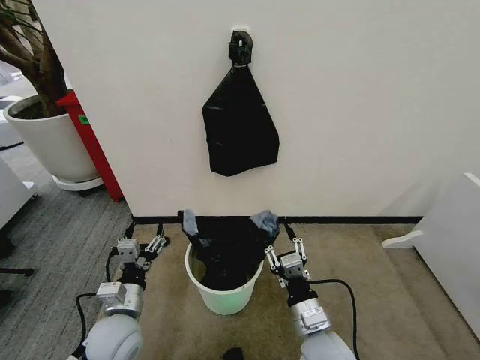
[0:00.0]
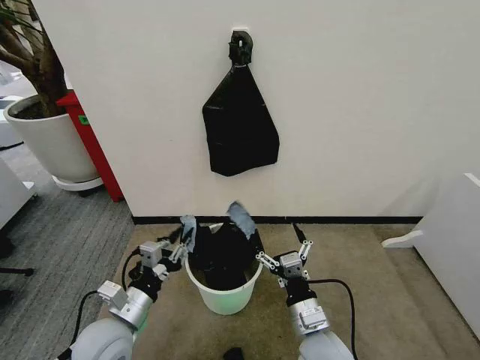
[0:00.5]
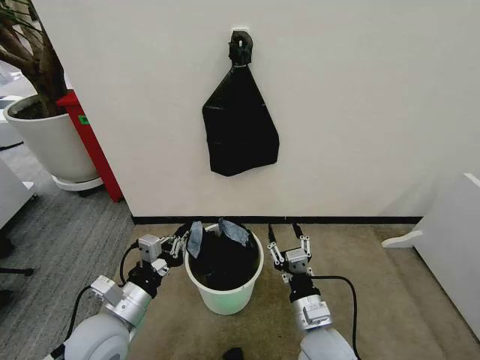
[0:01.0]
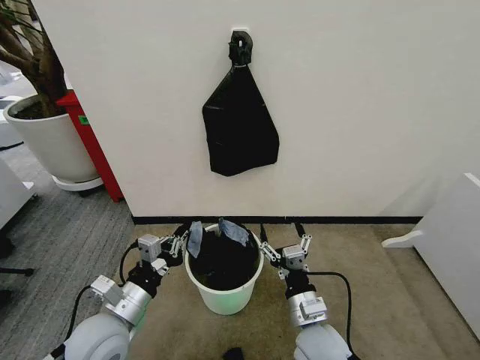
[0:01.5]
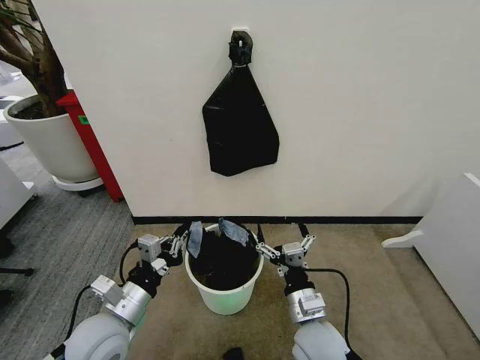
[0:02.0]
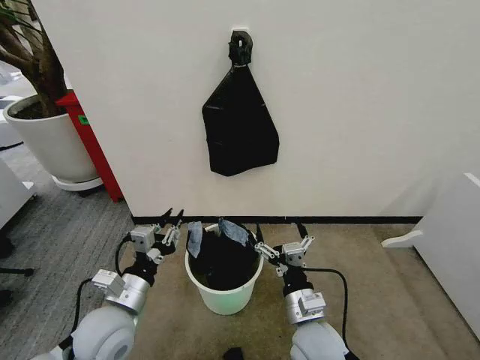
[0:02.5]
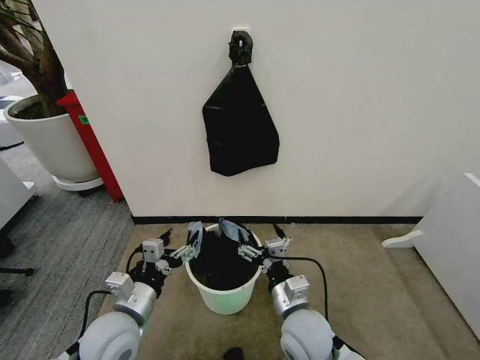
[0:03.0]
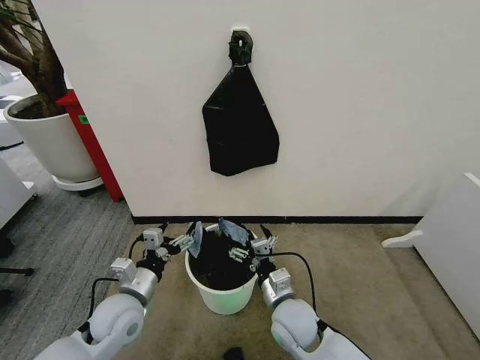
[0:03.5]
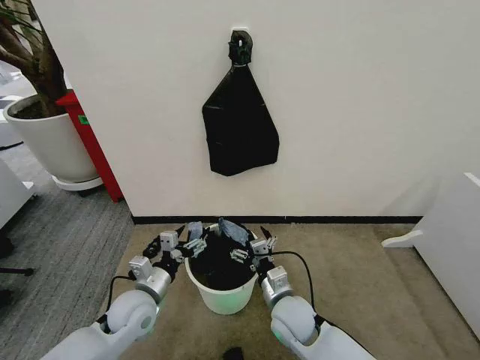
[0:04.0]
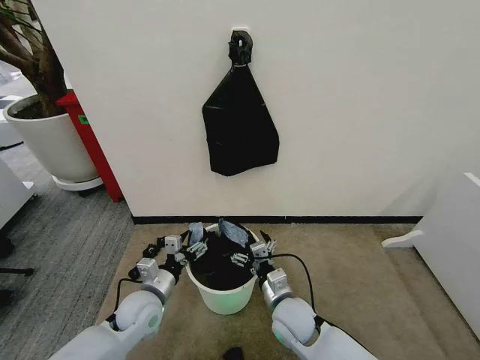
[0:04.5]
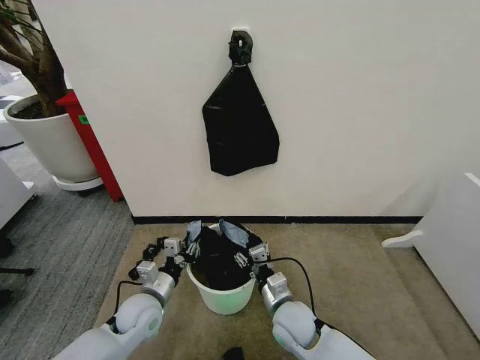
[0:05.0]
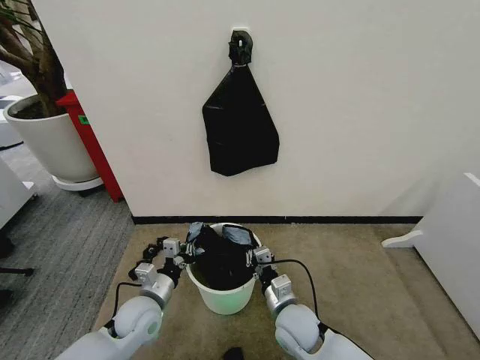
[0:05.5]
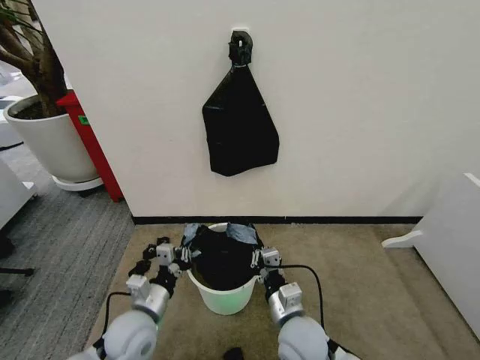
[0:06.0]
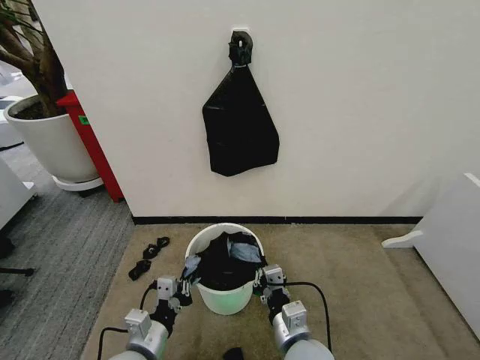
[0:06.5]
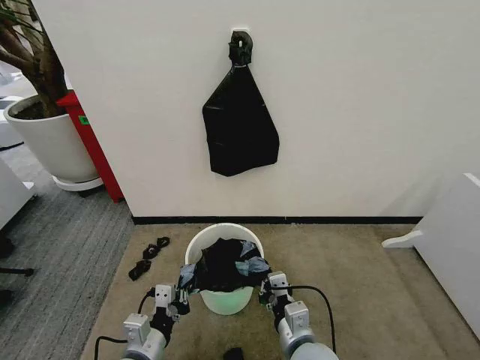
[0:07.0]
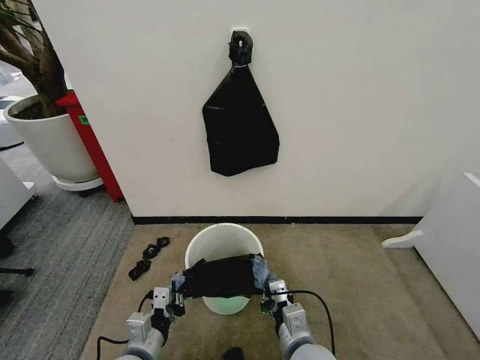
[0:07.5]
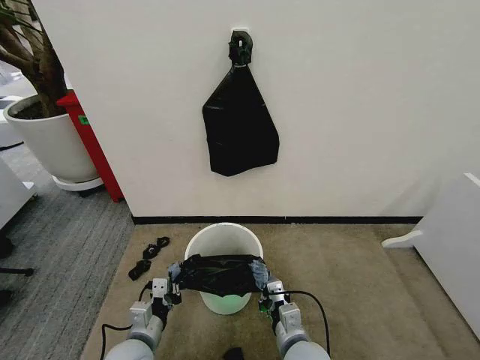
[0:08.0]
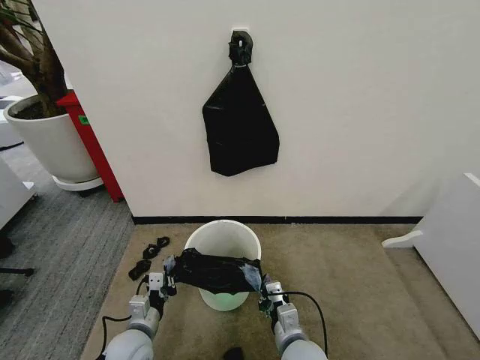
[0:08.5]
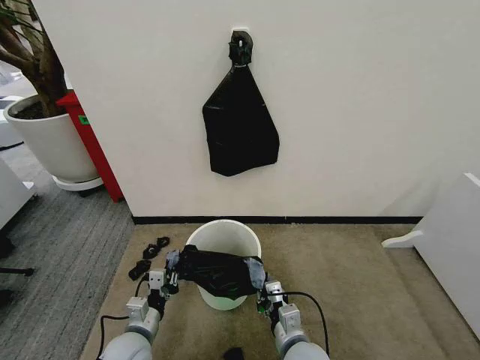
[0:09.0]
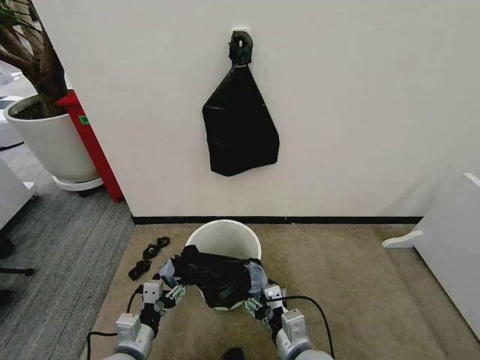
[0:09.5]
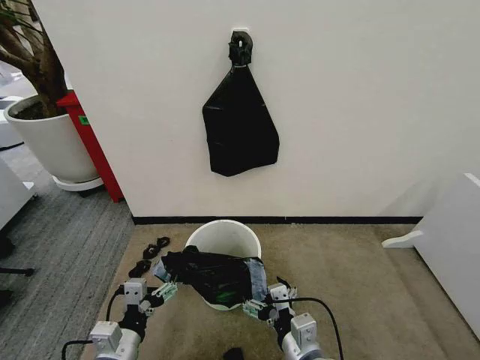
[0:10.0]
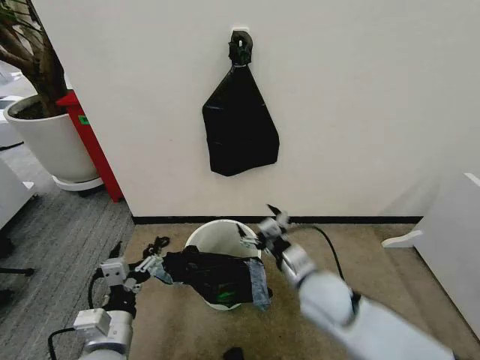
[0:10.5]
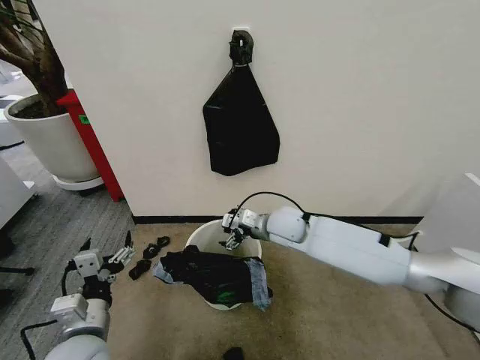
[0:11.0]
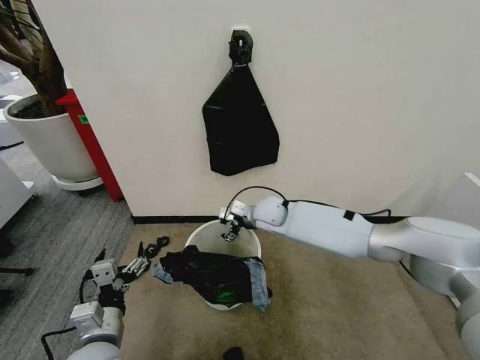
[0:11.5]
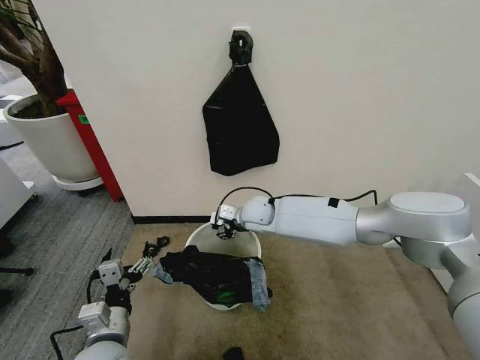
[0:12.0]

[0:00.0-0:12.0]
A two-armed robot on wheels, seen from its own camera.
Task of the whole recording: Place the garbage bag over the trash bin.
0:00.0 to 0:02.0: The right gripper opens up. The left gripper shifts some 5 cm upward, and closes up.
0:02.0 to 0:04.0: The left gripper heads forward and downward, covering approximately 10 cm, and opens, while the right gripper is displaced forward by about 5 cm.
0:04.0 to 0:06.0: The right gripper shifts by some 5 cm, and closes its fingers. Meanwhile the left gripper closes.
0:06.0 to 0:08.0: The left gripper moves about 5 cm.
0:08.0 to 0:10.0: The right gripper shifts some 5 cm upward, and opens; the left gripper is displaced upward and backward by about 10 cm, and opens up.
0:10.0 to 0:12.0: The right gripper is displaced forward by approximately 35 cm, and closes up.

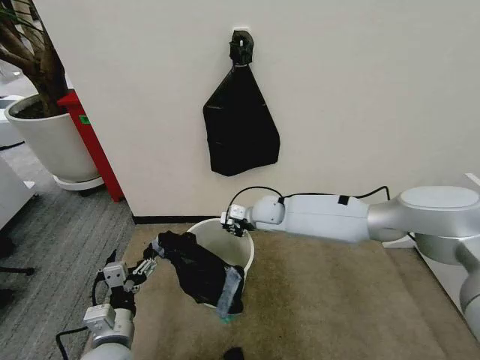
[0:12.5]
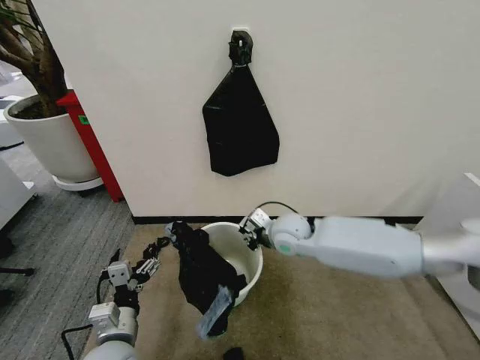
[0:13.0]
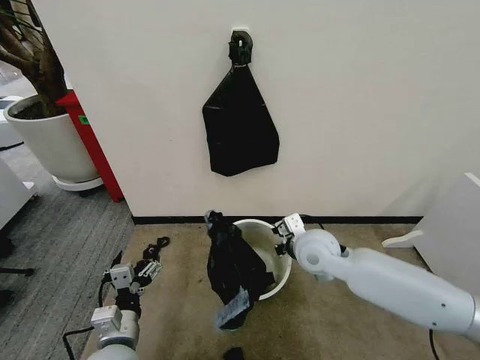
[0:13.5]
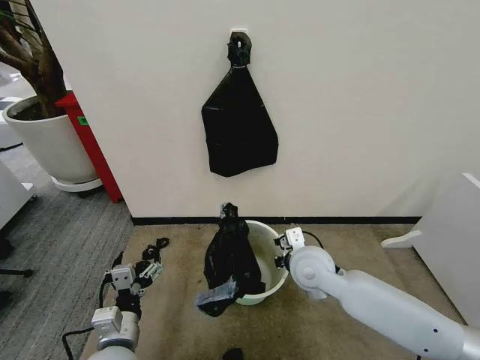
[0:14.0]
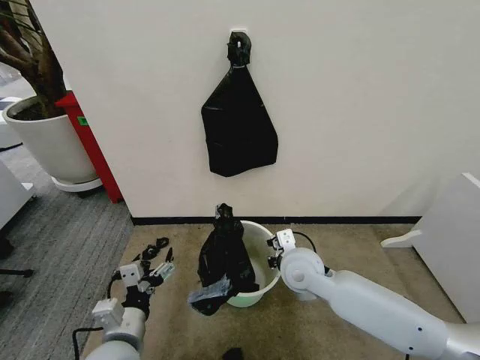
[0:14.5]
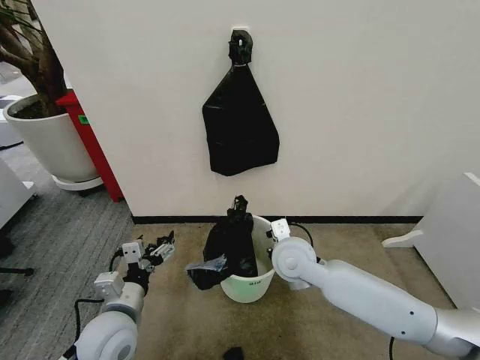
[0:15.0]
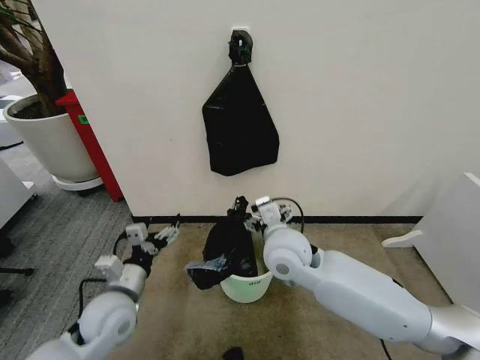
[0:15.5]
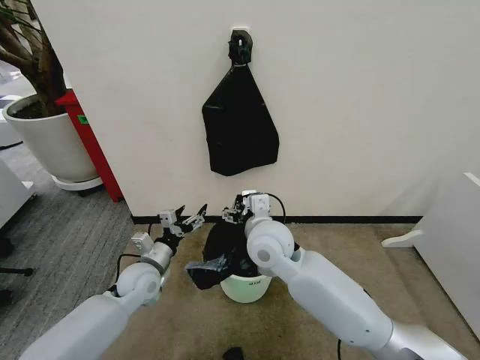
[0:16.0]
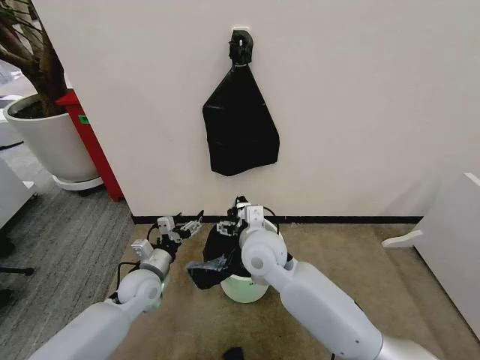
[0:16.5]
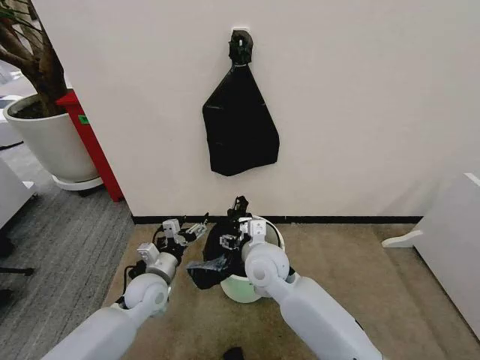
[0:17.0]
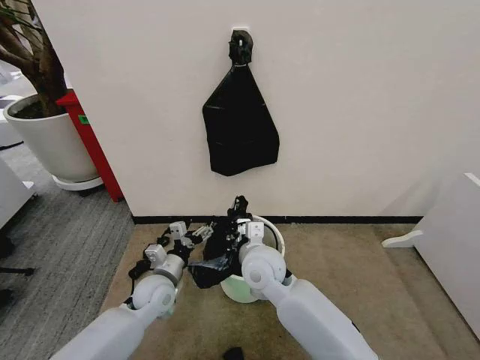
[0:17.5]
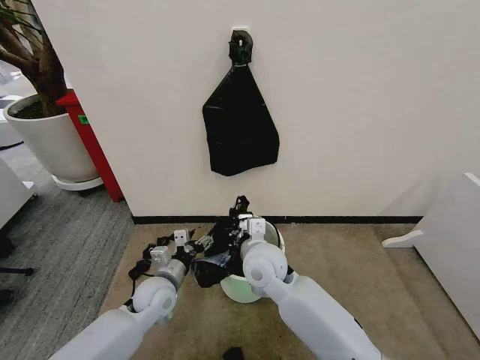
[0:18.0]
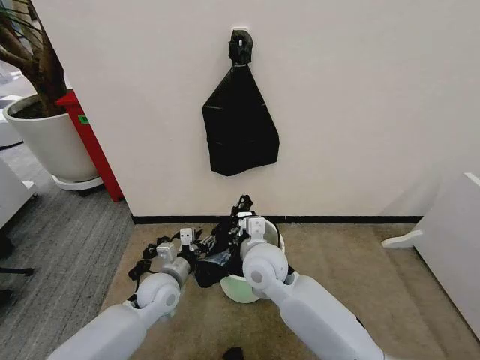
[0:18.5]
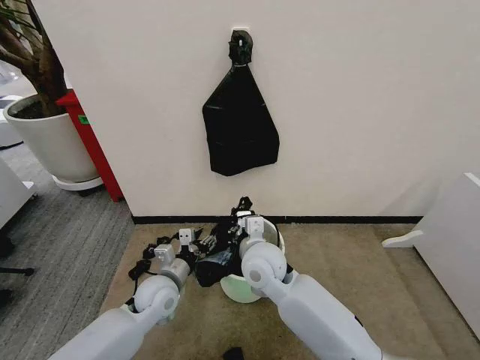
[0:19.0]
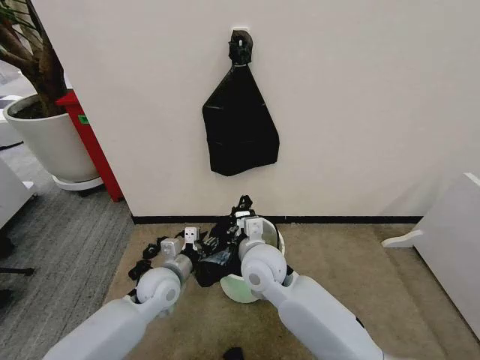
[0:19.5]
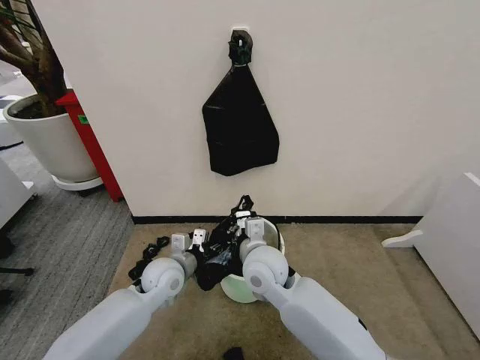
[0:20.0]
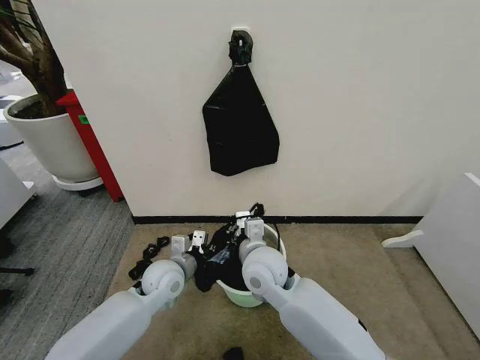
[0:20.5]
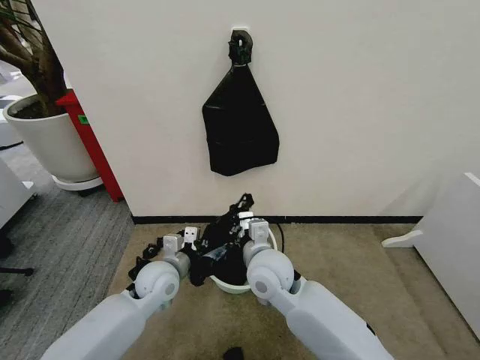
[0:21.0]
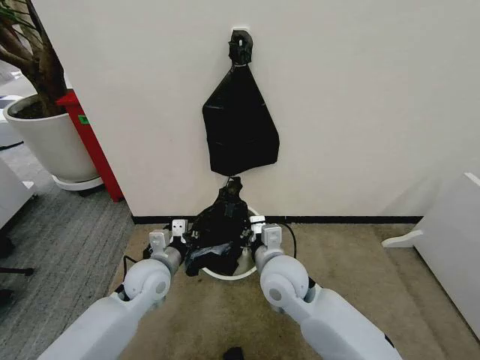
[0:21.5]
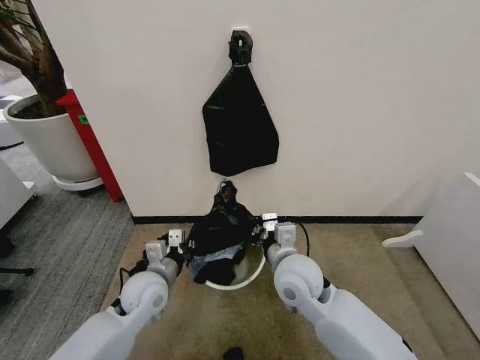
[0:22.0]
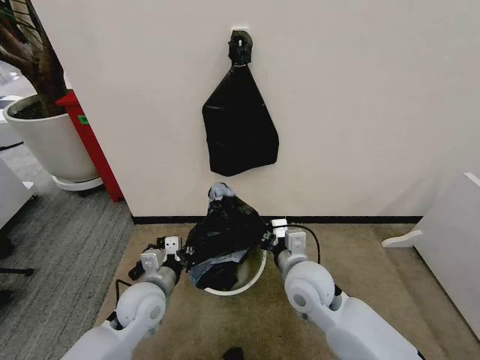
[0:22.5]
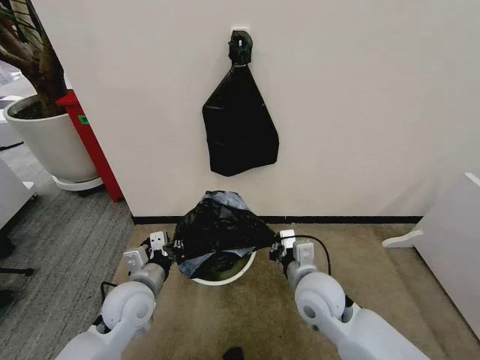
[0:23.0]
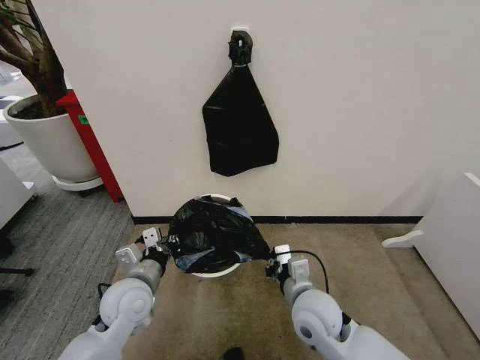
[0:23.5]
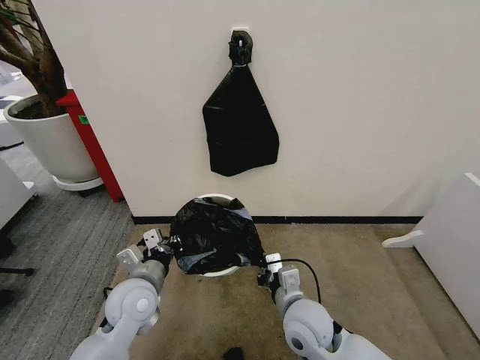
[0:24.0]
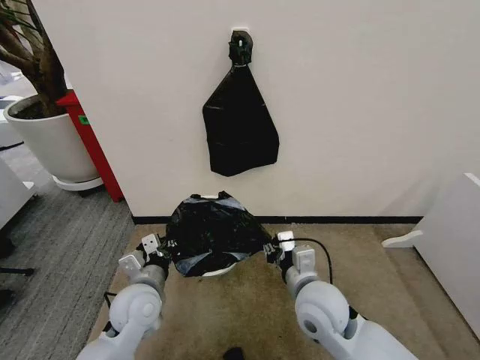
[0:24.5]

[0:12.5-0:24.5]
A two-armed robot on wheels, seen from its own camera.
Task of the whole recording: Place the garbage bag over the trash bin.
0:12.5 to 0:14.5: The right gripper is displaced backward by about 15 cm.
0:14.5 to 0:16.5: The right gripper goes some 10 cm to the left and upward, and opens up. The left gripper shifts some 15 cm forward.
0:16.5 to 0:18.5: The left gripper ends up roughly 5 cm from where it was. The right gripper closes its fingers.
0:18.5 to 0:20.5: The left gripper closes up.
0:20.5 to 0:22.5: The right gripper travels to the right by about 10 cm. Meanwhile the left gripper shifts approximately 5 cm backward.

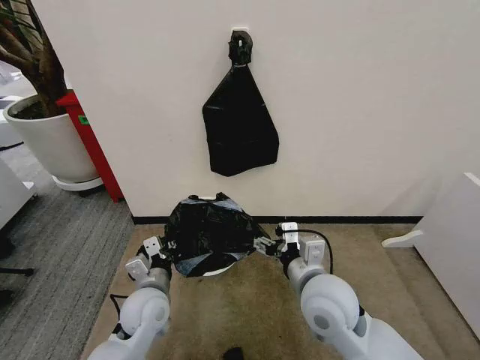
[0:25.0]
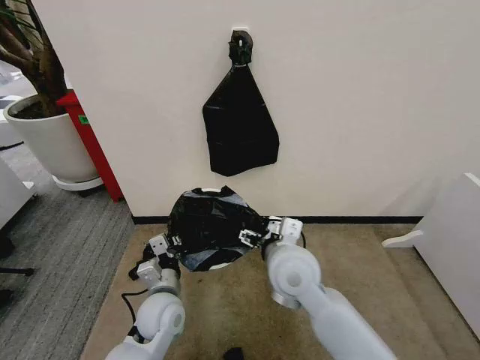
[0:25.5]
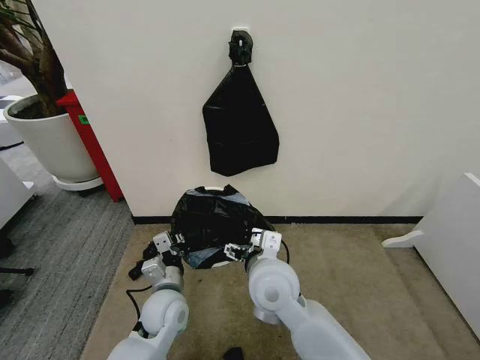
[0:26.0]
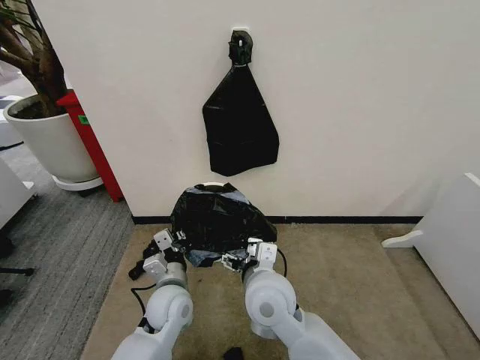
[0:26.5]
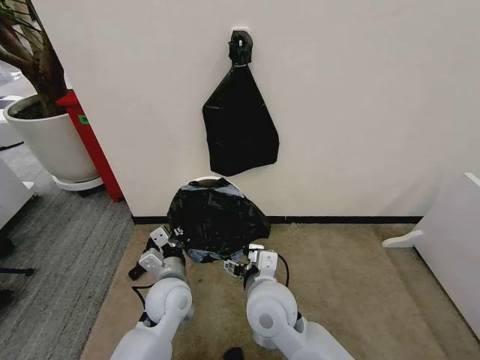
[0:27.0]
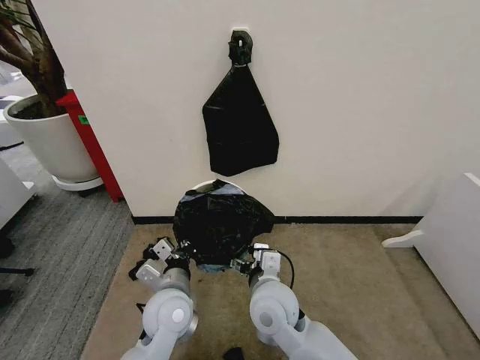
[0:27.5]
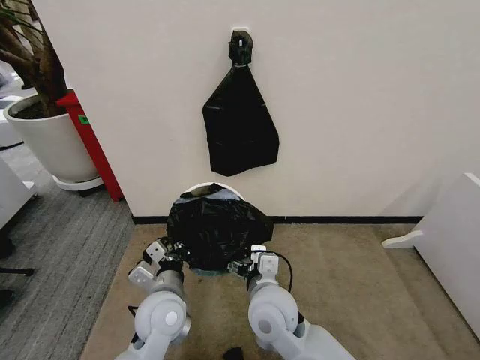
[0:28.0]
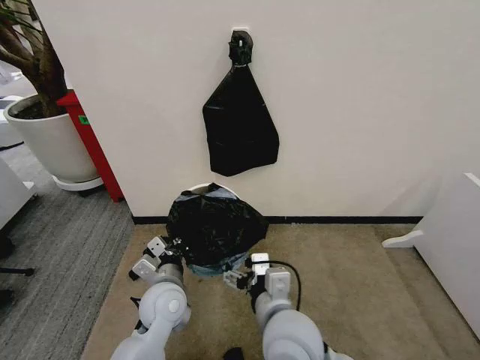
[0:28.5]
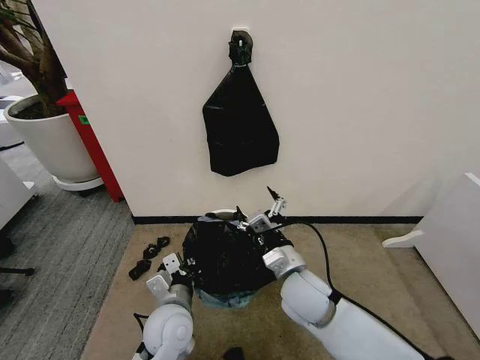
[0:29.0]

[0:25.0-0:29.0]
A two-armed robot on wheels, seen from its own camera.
Task of the whole recording: Place the garbage bag over the trash bin.
0:25.0 to 0:27.0: The right gripper goes about 10 cm to the left.
0:27.0 to 0:29.0: The right gripper heads to the right, covering approximately 5 cm, and reaches approximately 5 cm backward, then returns, while the left gripper moves backward, roughly 5 cm.
